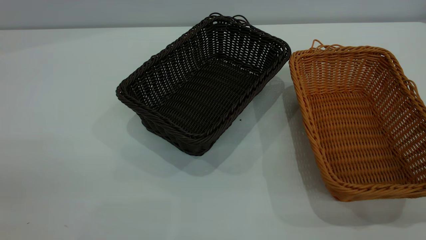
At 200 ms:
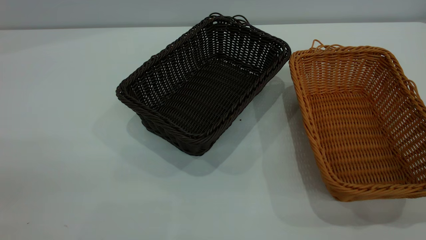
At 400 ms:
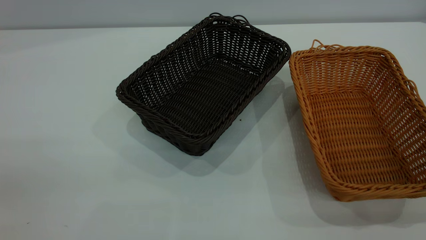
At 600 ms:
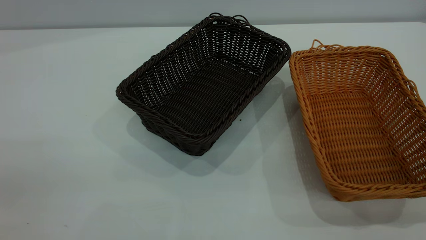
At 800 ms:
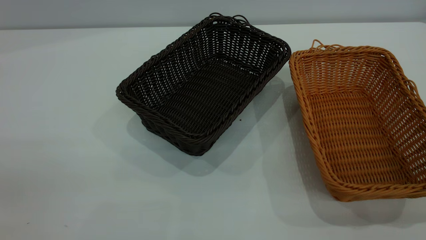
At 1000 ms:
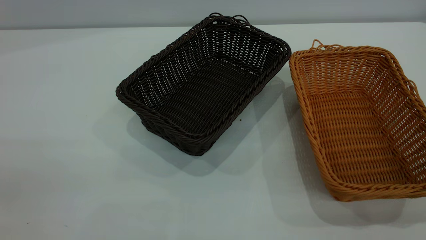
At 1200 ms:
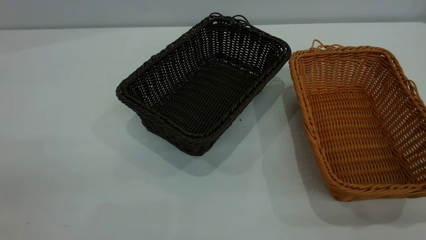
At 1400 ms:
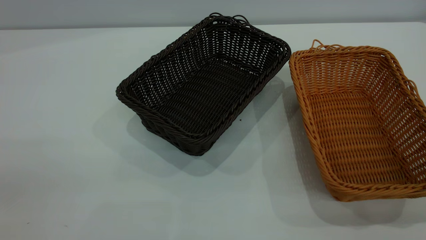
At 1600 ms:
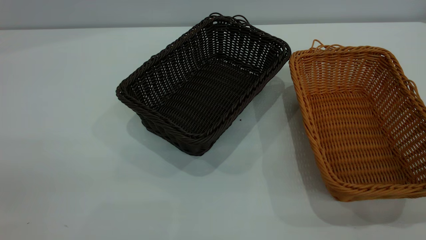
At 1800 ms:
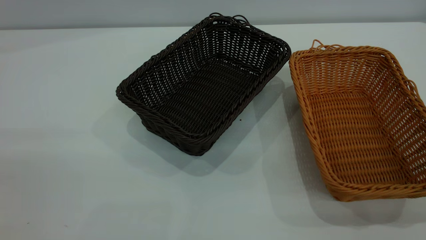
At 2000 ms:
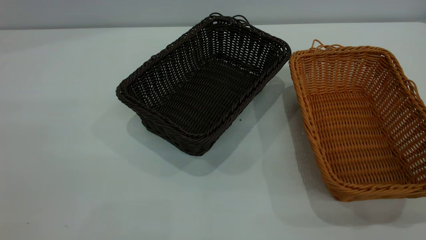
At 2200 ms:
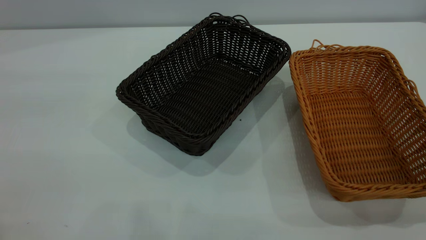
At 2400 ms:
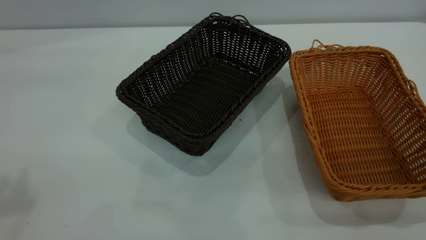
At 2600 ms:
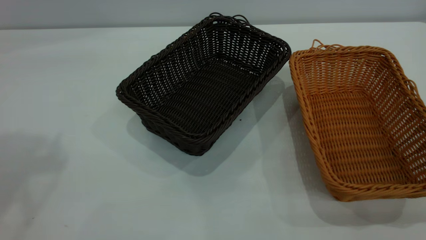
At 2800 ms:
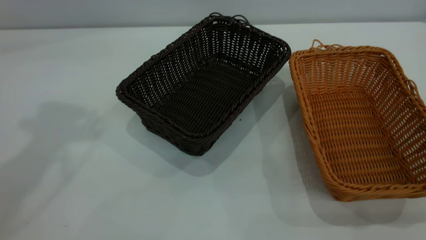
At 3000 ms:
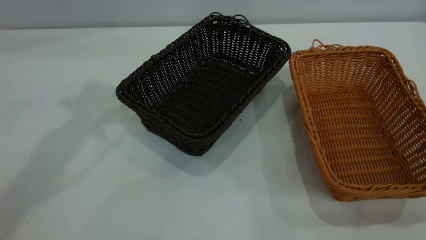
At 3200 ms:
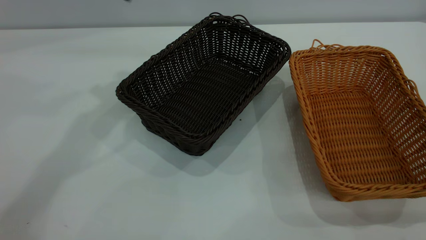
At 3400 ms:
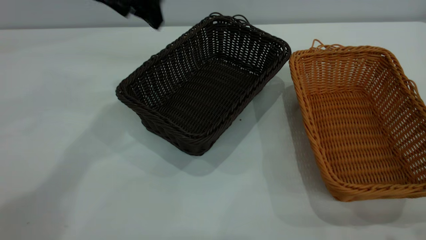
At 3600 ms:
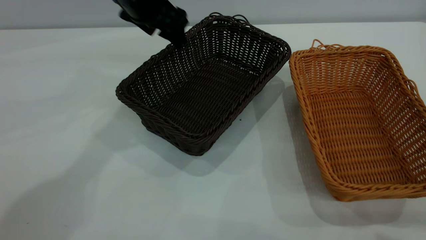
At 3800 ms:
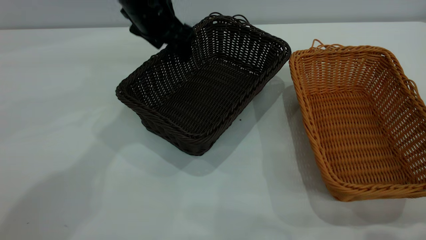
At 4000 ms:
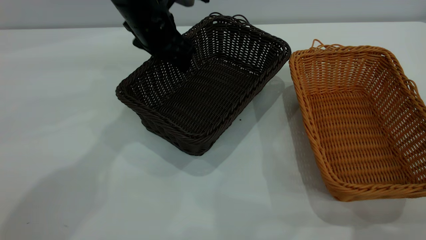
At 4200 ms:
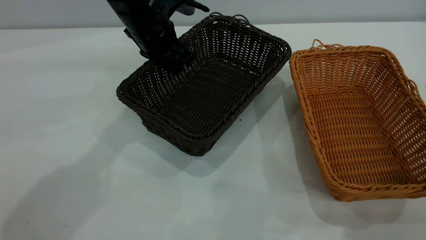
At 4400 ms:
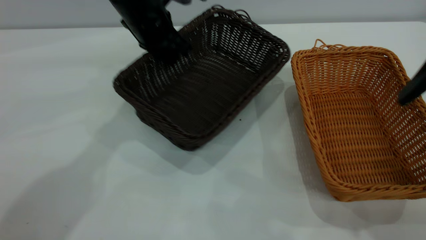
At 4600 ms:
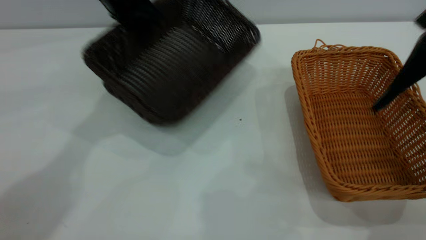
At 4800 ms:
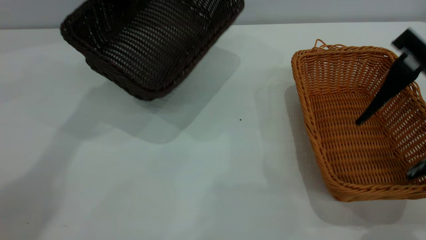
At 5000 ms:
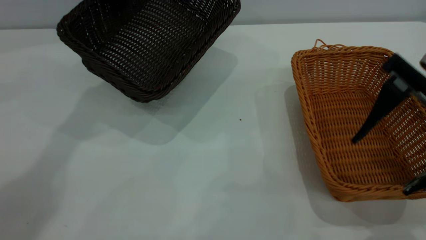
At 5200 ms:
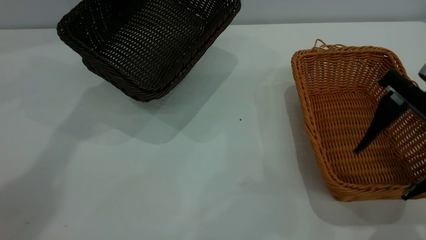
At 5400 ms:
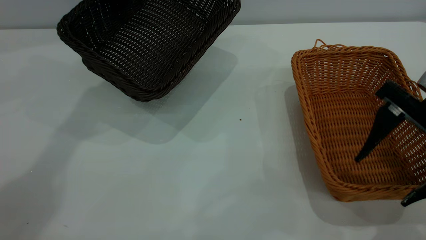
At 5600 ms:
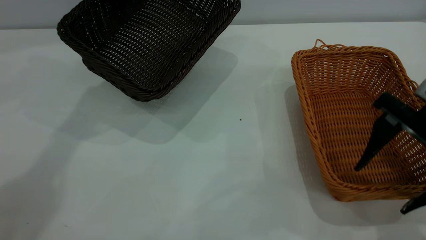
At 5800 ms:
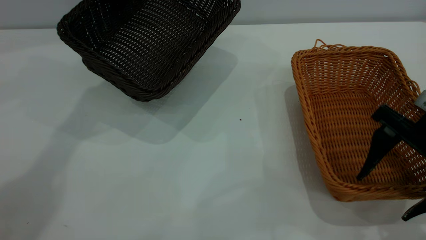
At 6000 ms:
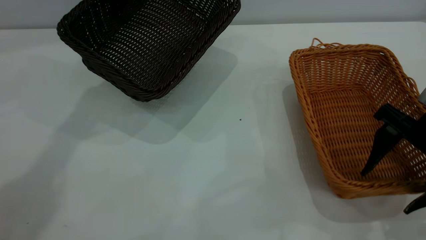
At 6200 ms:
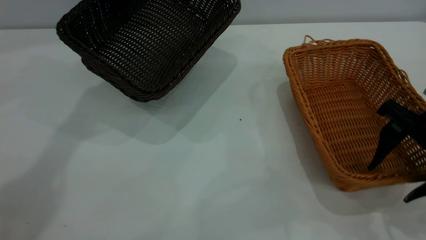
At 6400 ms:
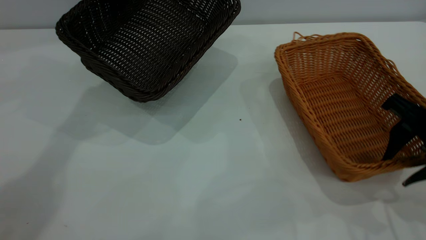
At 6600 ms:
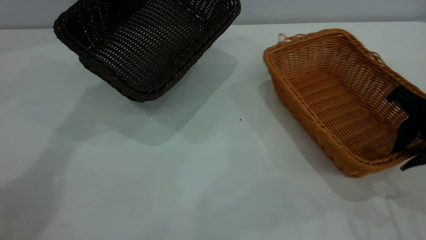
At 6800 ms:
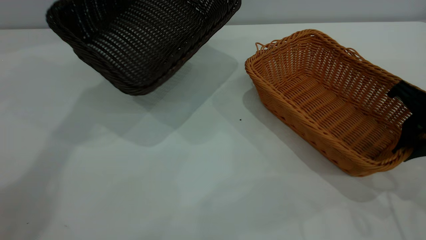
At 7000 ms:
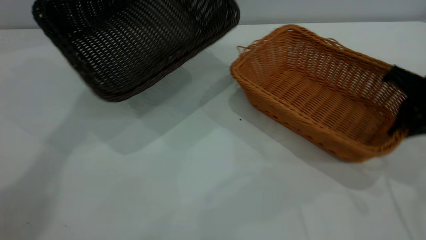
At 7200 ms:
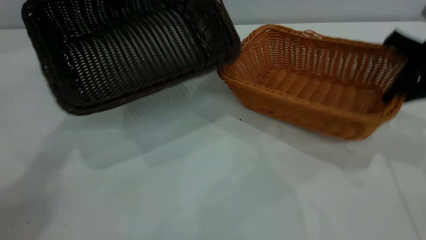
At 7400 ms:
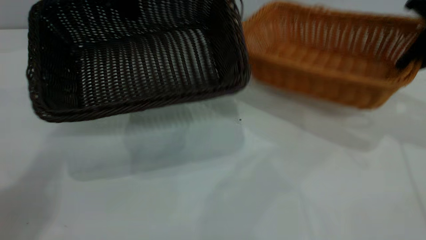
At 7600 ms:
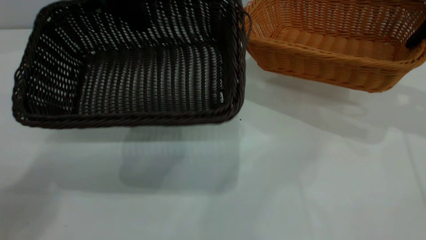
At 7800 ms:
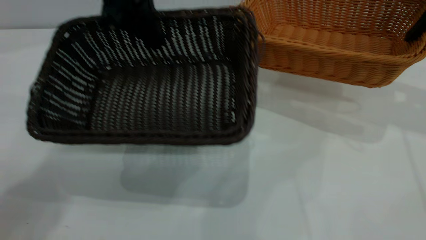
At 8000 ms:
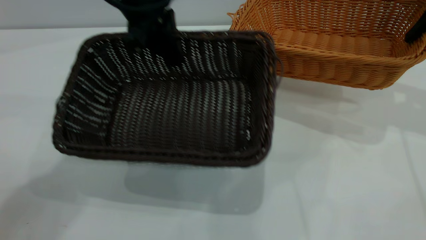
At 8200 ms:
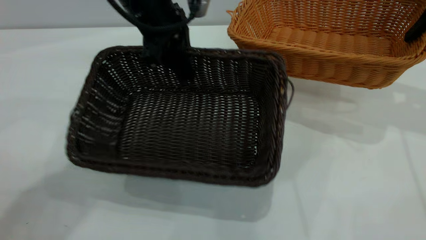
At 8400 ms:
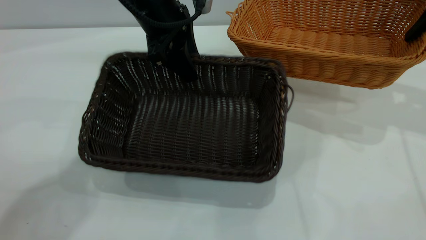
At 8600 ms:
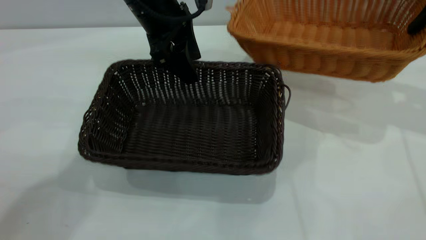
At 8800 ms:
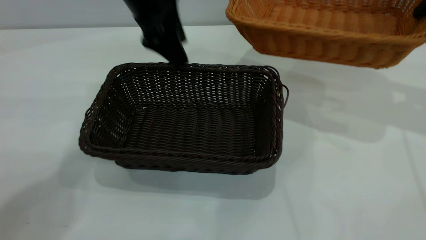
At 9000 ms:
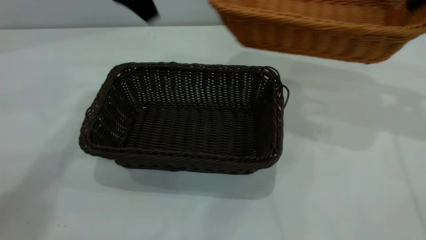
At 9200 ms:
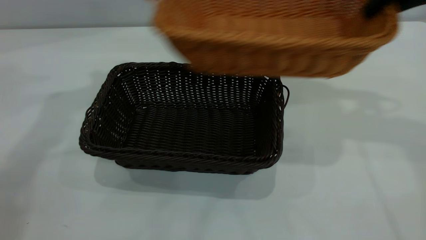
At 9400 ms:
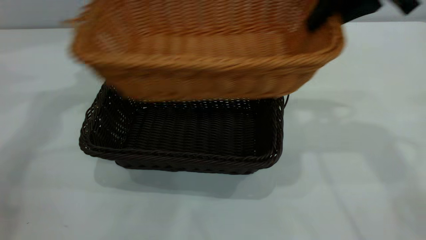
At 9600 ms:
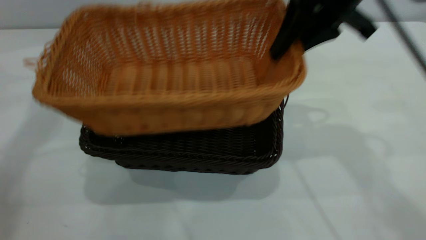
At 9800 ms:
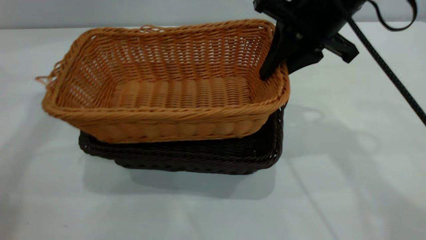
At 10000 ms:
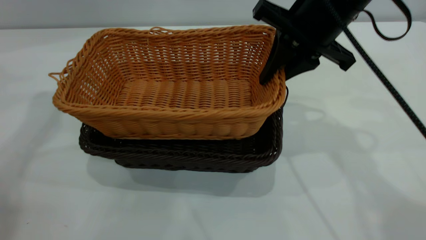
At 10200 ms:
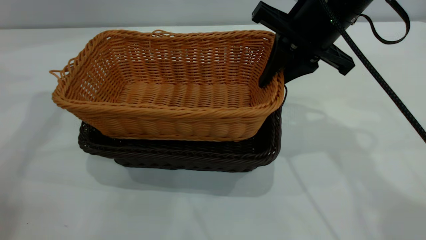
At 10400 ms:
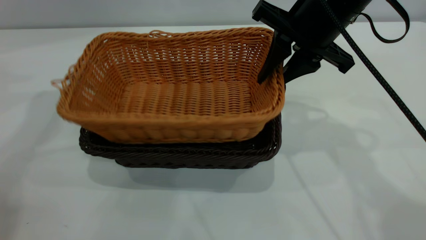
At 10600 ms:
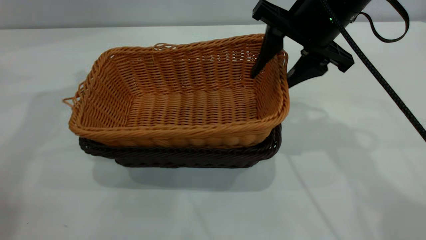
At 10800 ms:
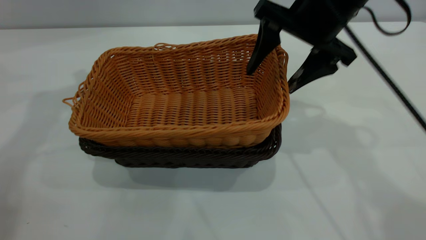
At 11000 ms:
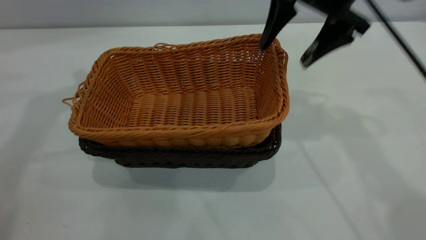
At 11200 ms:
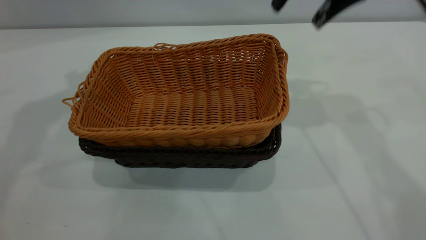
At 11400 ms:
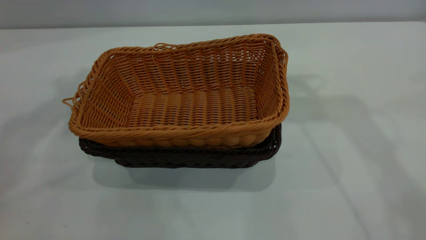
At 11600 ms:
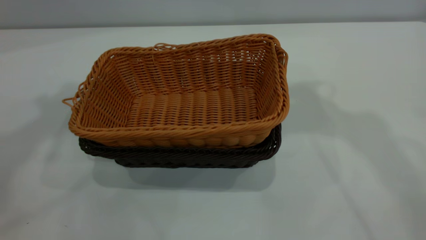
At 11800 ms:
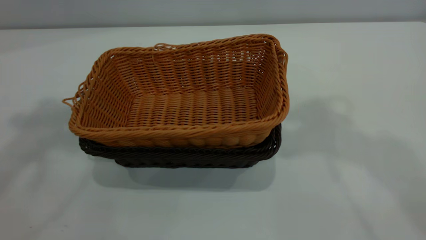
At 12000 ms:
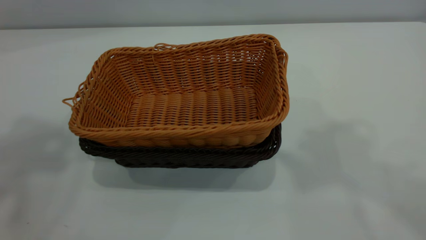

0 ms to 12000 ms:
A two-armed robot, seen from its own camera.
Task of the whole recording: the left gripper grasp the black basket and place it in the center of the table, the right gripper grasp the brown basket and place it inside the black one.
Step, 0 ms to 7800 ms: Pick up the light basket with the right gripper.
Step, 8000 ms to 8800 ms: Move the dark basket to the center of view.
Step, 9000 ms to 11000 ms: Place the light basket on the dark basket.
0 ms to 1600 ms: The two grippers keep their place.
3000 ms to 4400 ms: The left gripper travels downward, to the right and forward by some 20 cm, and closes its fingers; the right gripper goes about 15 cm forward and downward.
4400 ms to 6000 ms: The left gripper is displaced upward and to the left by roughly 10 cm, while the right gripper shifts roughly 15 cm downward.
6000 ms to 7600 ms: The right gripper heads forward, upward and to the right, covering about 20 cm, and closes up, while the left gripper shifts by some 5 cm.
7600 ms to 9000 ms: The right gripper goes approximately 5 cm upward. The left gripper moves some 5 cm downward and comes back, and opens.
9000 ms to 10400 ms: The right gripper heads to the left and downward, covering approximately 20 cm. Meanwhile the left gripper moves to the left, approximately 10 cm.
10400 ms to 12000 ms: The left gripper shifts roughly 30 cm upward and backward; the right gripper shifts approximately 35 cm upward, and opens its fingers.
